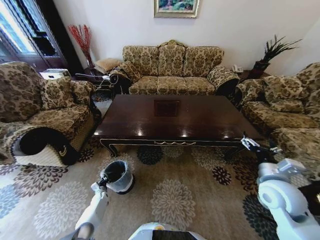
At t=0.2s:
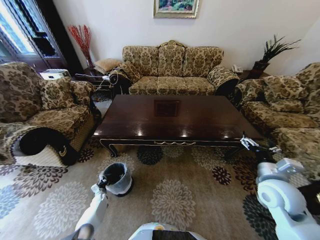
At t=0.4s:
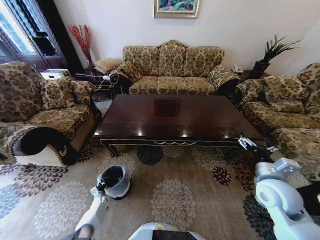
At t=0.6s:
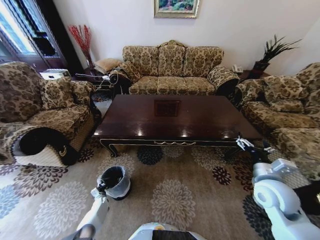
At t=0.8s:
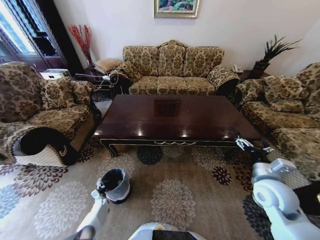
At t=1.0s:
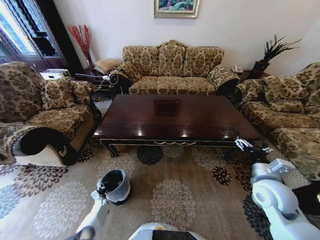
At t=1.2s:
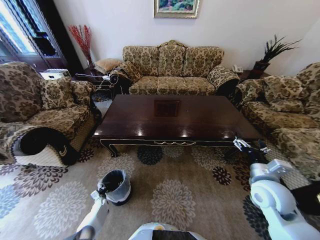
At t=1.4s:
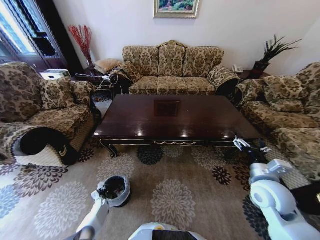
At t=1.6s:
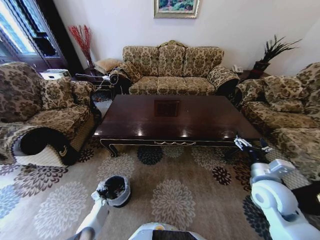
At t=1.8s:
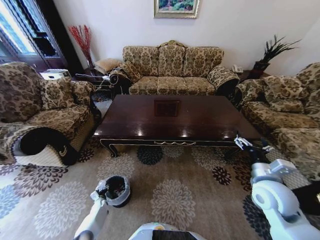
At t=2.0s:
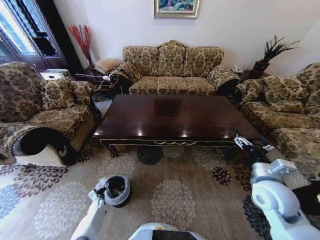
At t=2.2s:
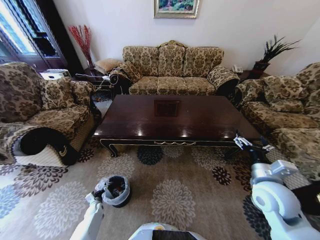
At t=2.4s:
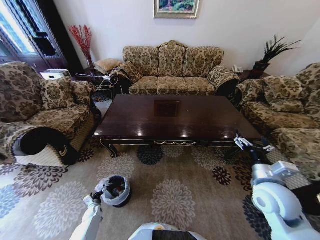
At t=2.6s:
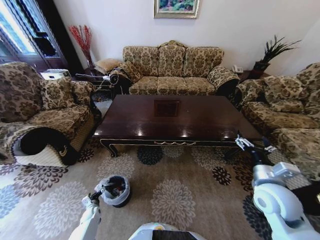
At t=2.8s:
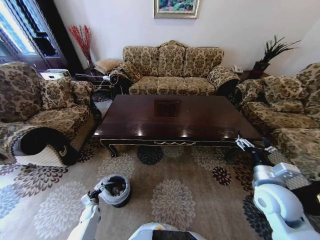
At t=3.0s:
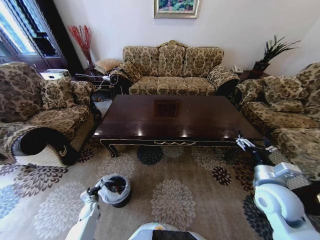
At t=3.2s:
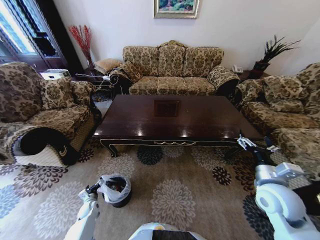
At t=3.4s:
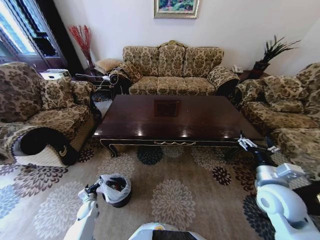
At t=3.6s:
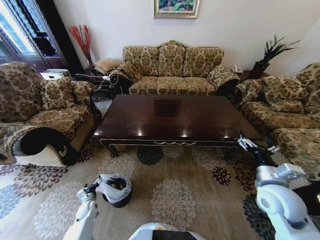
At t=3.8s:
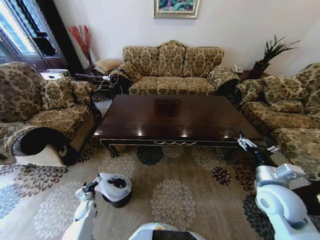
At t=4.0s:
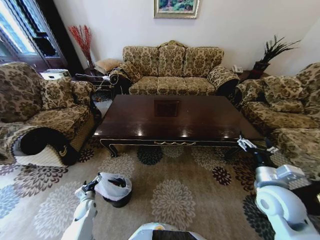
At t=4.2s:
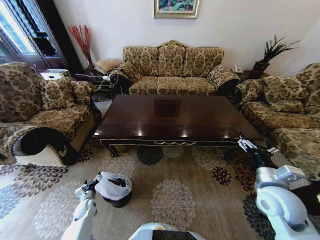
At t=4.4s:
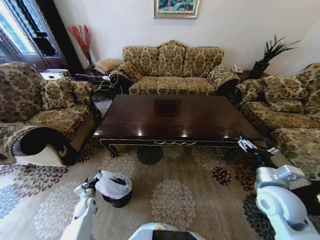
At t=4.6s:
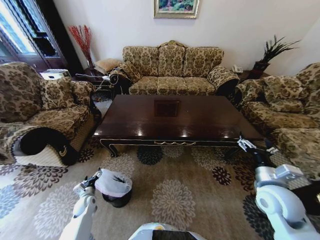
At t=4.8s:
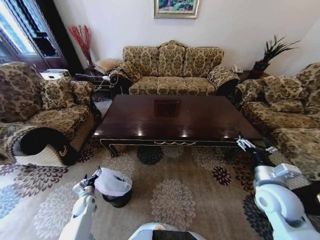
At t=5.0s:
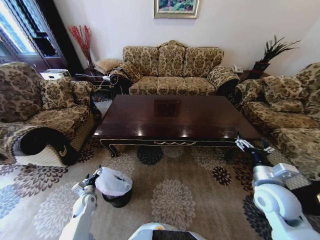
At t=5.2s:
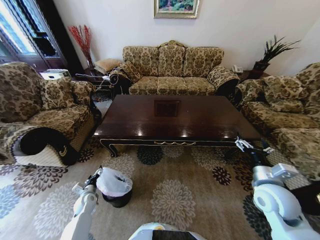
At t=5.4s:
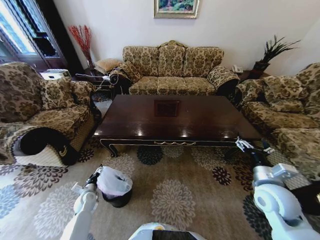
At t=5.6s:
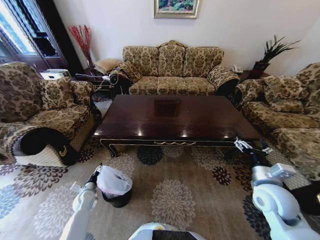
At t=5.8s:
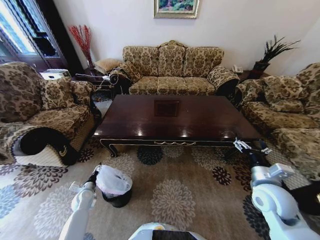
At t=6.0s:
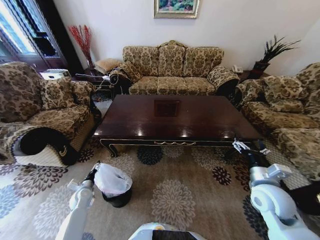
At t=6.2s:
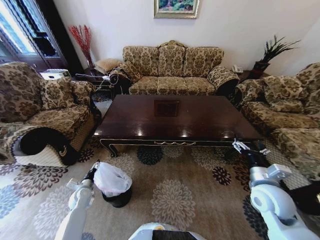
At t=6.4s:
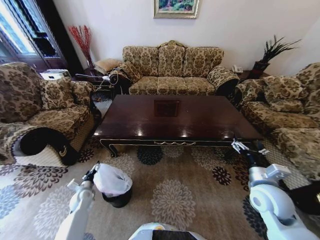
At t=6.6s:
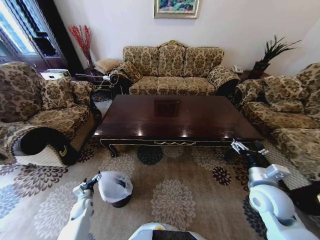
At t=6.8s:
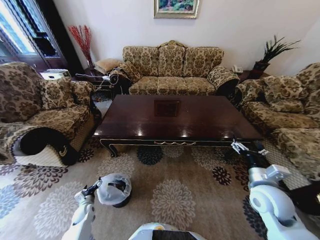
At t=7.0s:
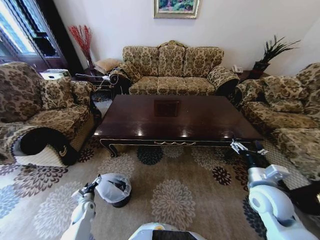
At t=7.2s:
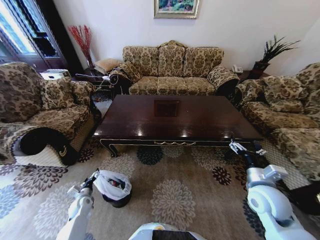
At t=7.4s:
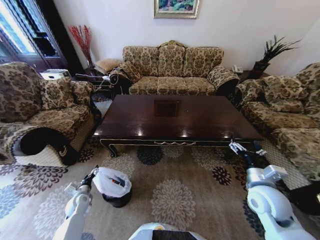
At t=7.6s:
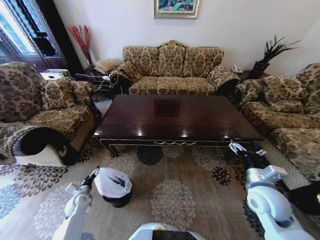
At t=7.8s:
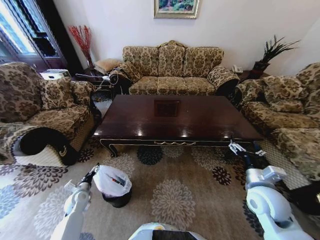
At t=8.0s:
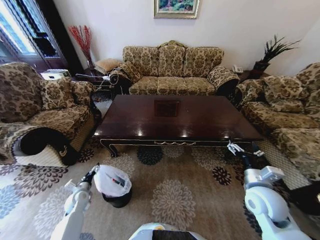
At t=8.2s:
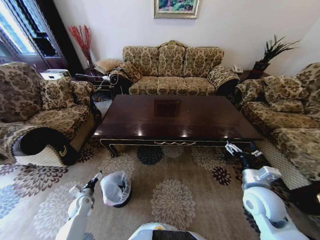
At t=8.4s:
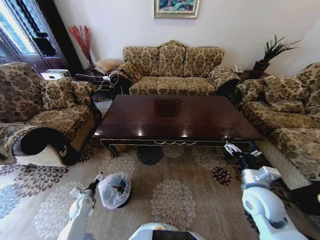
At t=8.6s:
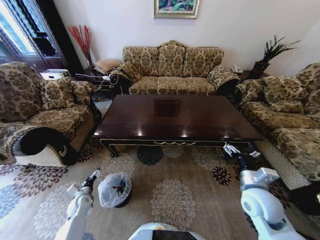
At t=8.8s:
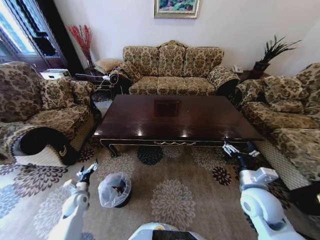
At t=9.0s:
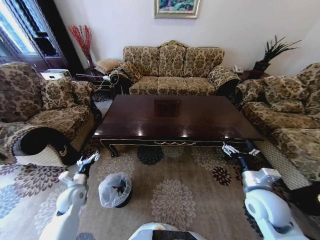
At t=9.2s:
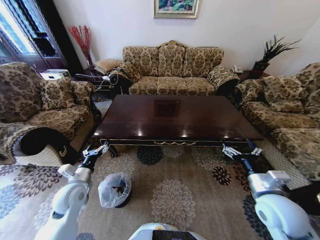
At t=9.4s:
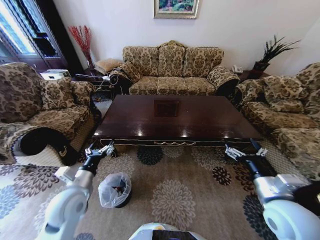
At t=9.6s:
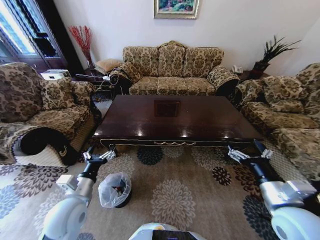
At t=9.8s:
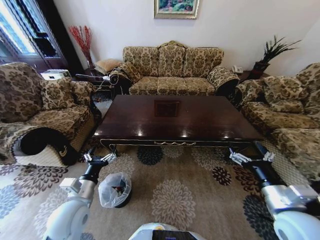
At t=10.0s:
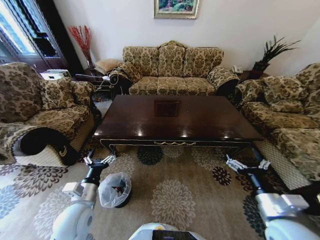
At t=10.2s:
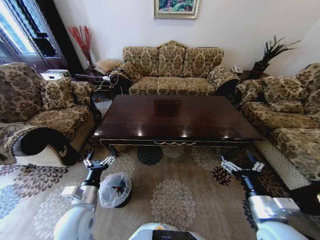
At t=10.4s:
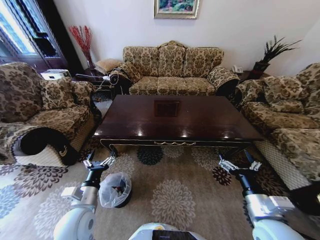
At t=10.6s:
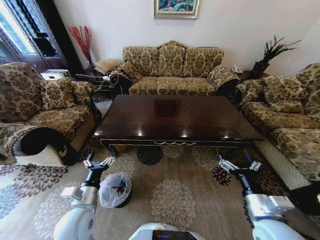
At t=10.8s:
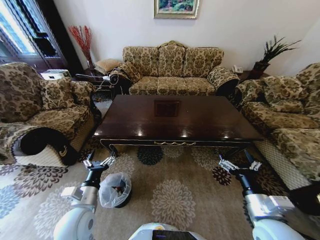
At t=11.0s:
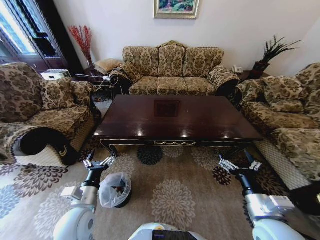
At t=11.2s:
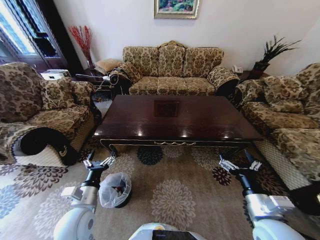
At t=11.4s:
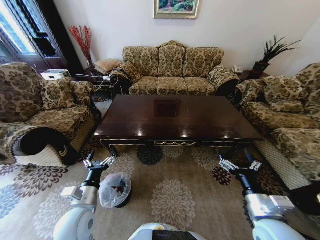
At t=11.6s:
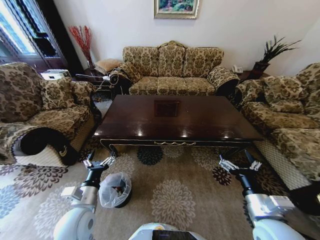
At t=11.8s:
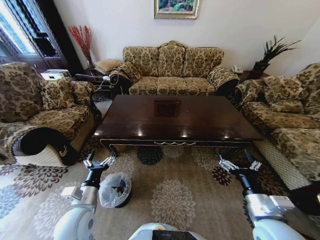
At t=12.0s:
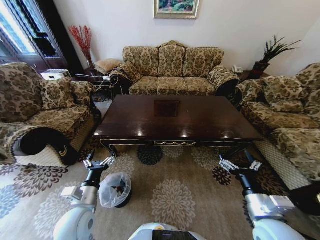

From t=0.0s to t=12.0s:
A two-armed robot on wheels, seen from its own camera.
Task of the whole recording: Move to the front of the table and place the trash on the table into the trash bin.
From t=0.0s to t=1.6s: The left gripper ends up roughly 5 cm from where it was, and opens.
From t=1.6s to t=3.0s: The left gripper is displaced upward by roughly 10 cm, and opens up.
From t=3.0s to t=4.4s: The left gripper travels upward by approximately 5 cm.
From t=4.4s to t=6.0s: The left gripper shifts by about 5 cm.
From t=6.0s to t=7.6s: The left gripper reaches roughly 10 cm downward, then returns.
From t=7.6s to t=9.0s: The left gripper shifts approximately 10 cm upward.
From t=9.0s to t=10.4s: The right gripper travels backward by about 10 cm. Meanwhile the left gripper goes about 15 cm to the right, backward and upward.
From t=10.4s to t=12.0s: Both grippers stay about where they are.
